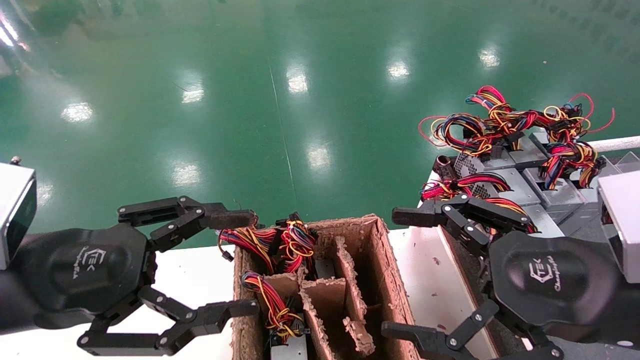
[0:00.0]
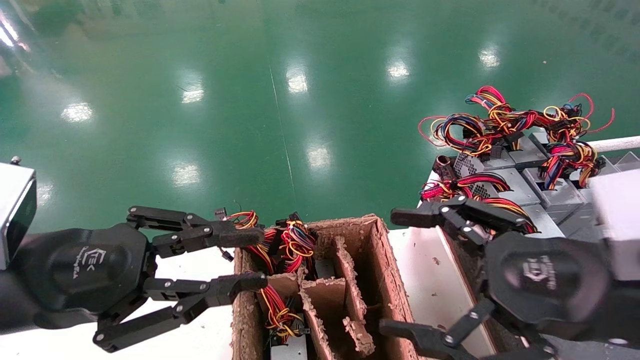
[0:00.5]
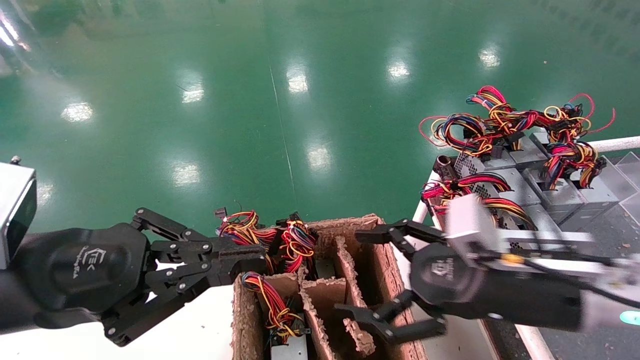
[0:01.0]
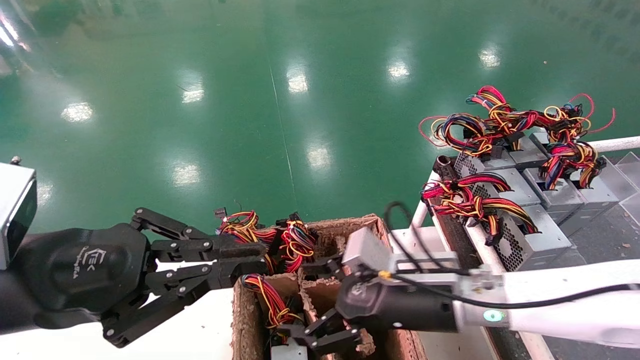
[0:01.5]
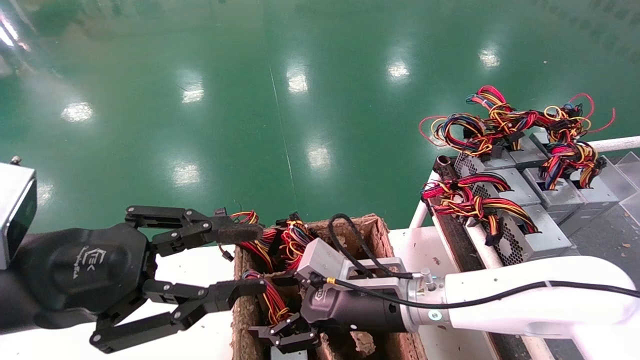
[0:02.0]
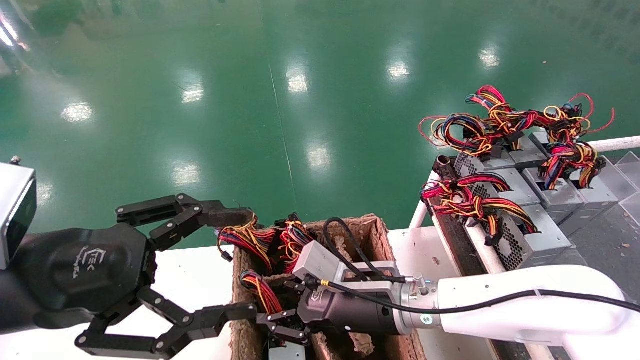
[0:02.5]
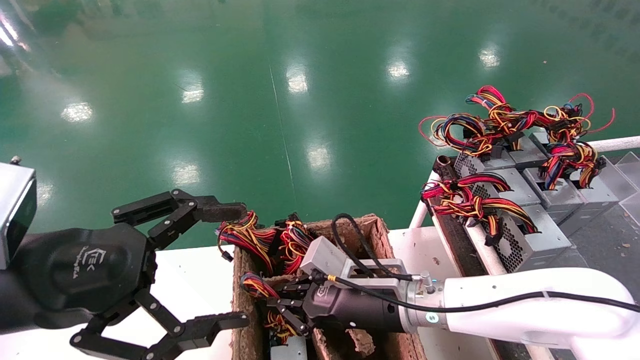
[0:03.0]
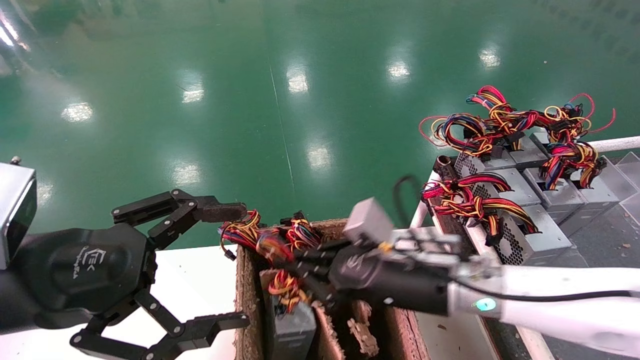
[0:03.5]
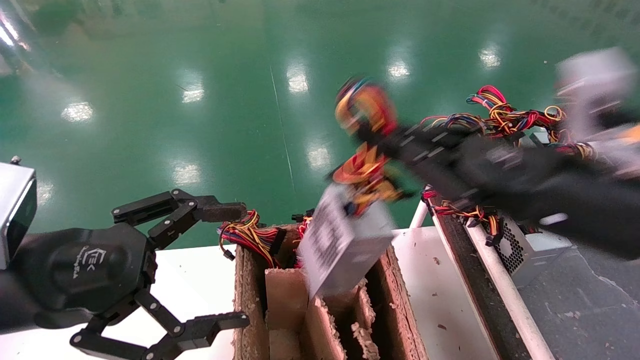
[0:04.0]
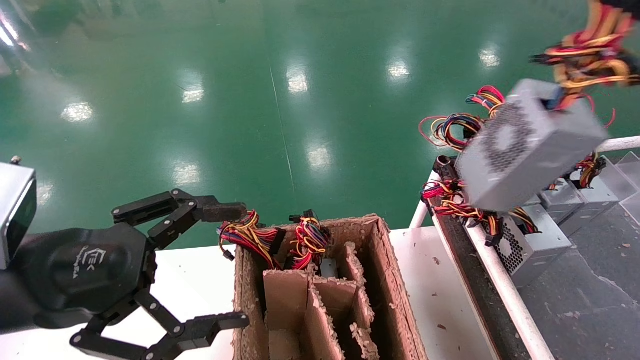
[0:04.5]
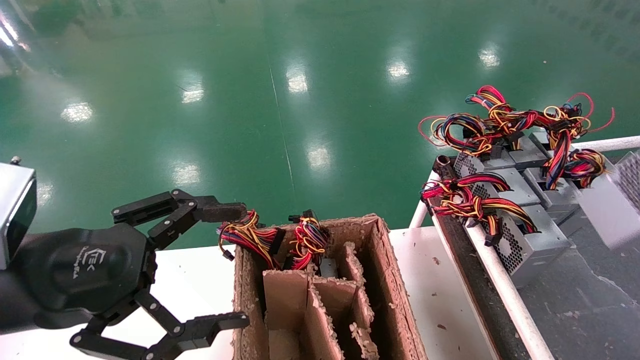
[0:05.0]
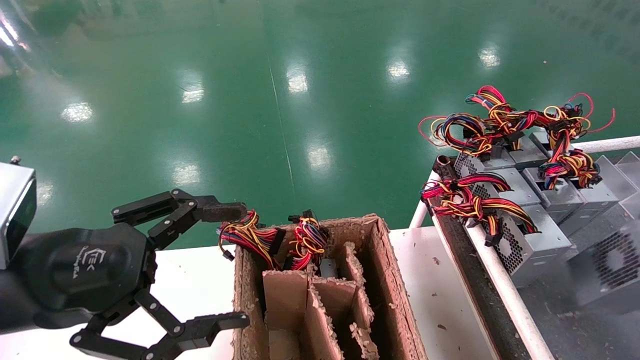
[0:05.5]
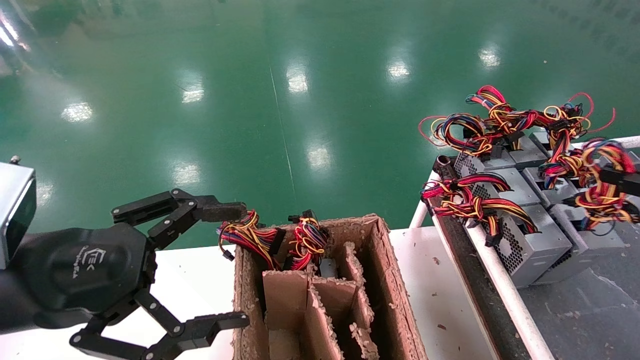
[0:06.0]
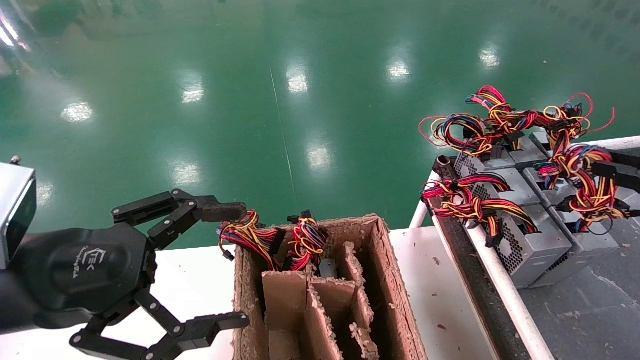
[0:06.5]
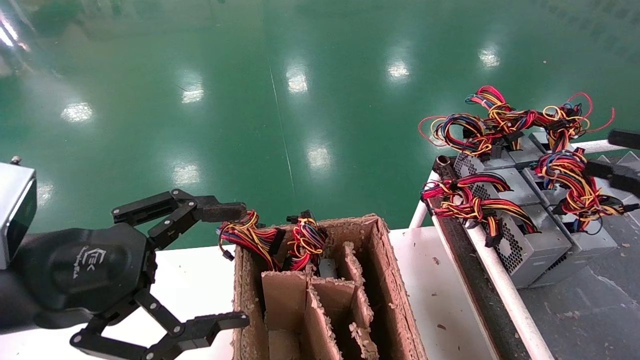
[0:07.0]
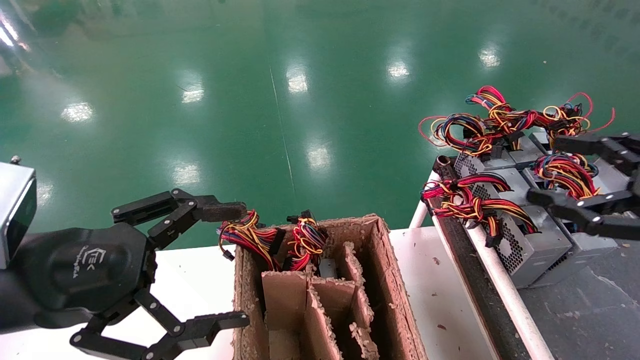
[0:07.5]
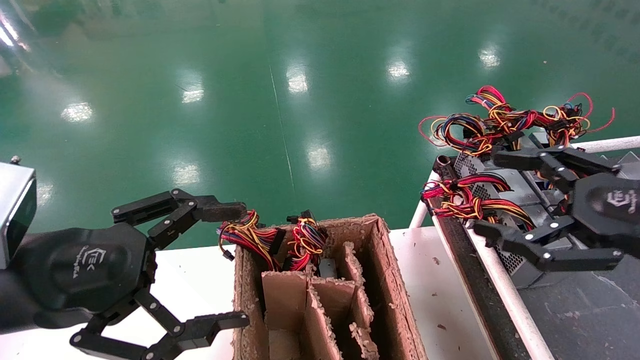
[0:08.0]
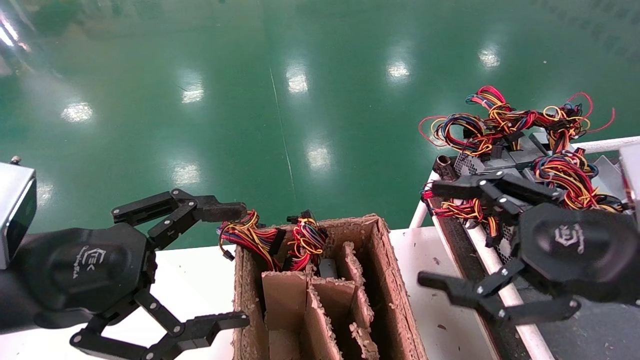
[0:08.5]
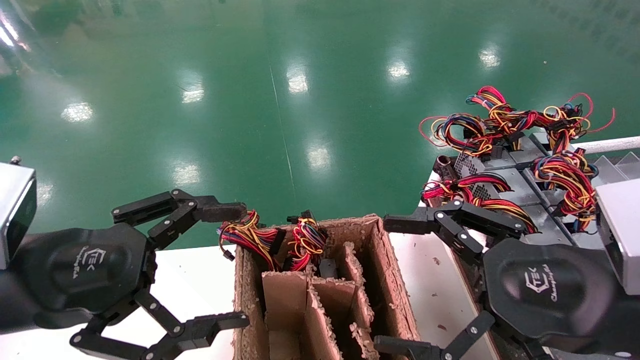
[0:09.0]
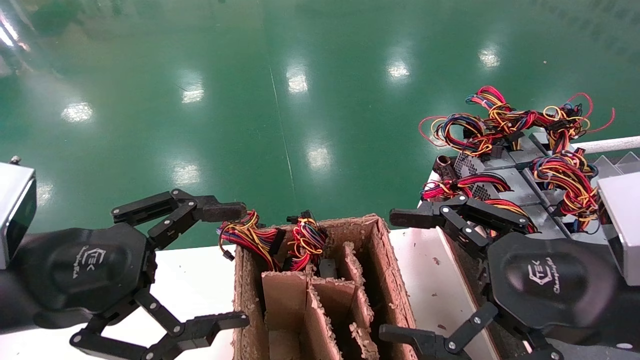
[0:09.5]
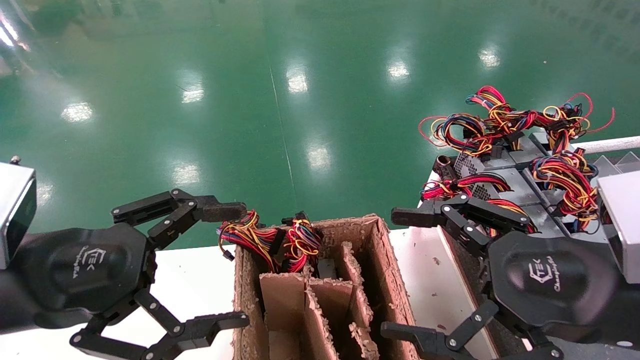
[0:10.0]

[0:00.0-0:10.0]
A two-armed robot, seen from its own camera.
Step, 0:01.0 to 0:03.0: Grab and lift the power supply from the large box.
Step, 0:03.5 to 0:06.5: Place the power supply on the operating table.
0:00.0 to 0:02.0: The right gripper is displaced to the left, forward and downward by roughly 25 cm. The left gripper closes up.
0:02.0 to 0:04.0: The right gripper heads upward, to the right and backward, covering approximately 25 cm, and closes. Meanwhile the left gripper opens its fingers.
0:04.0 to 0:06.0: The right gripper goes roughly 25 cm to the right.
0:06.0 to 0:08.0: The right gripper is displaced to the left by approximately 15 cm, and opens its fingers.
0:08.0 to 0:10.0: The right gripper travels to the left by about 10 cm.

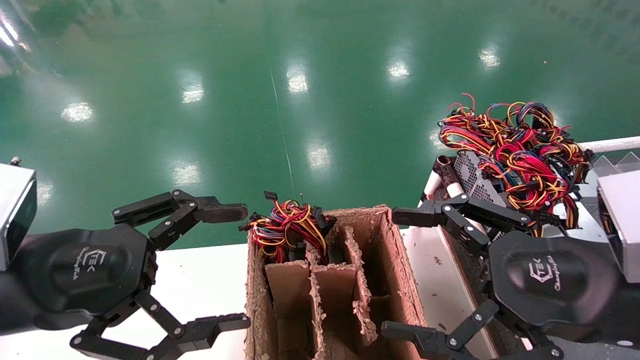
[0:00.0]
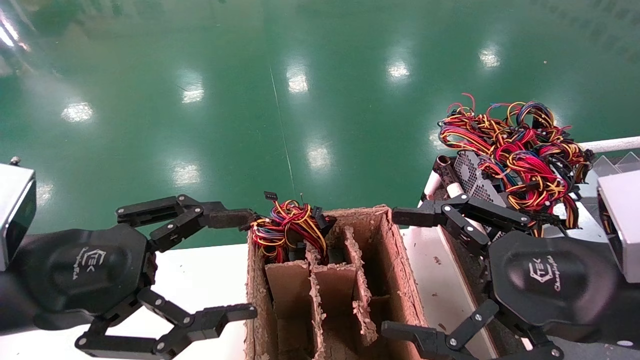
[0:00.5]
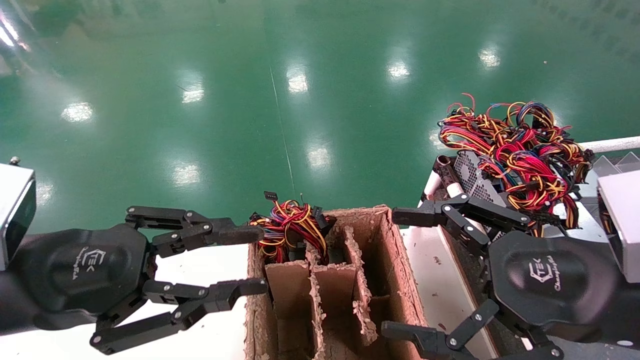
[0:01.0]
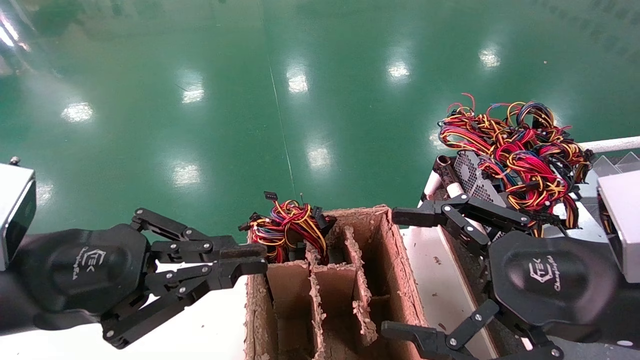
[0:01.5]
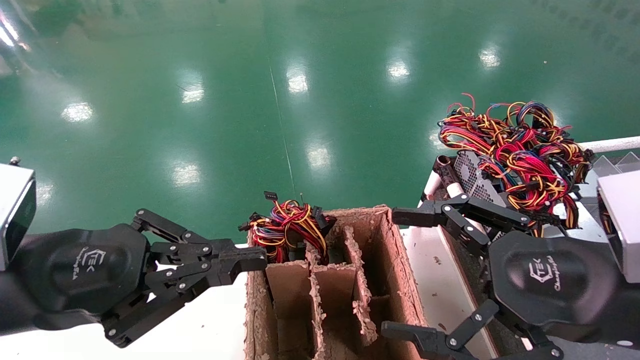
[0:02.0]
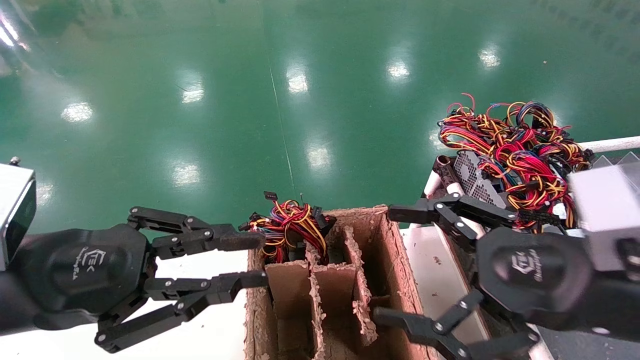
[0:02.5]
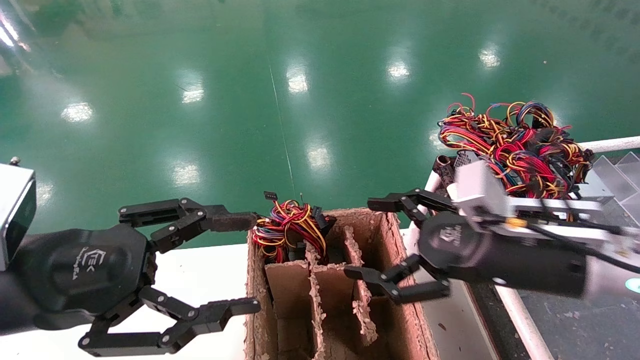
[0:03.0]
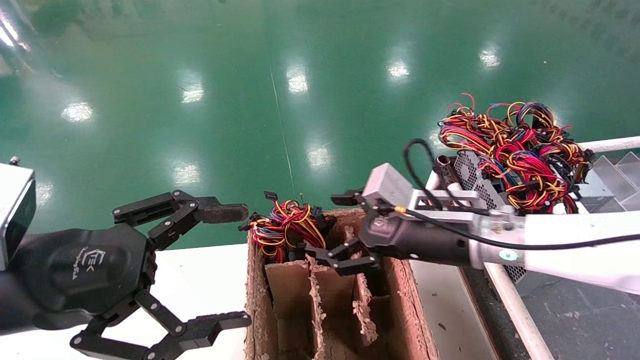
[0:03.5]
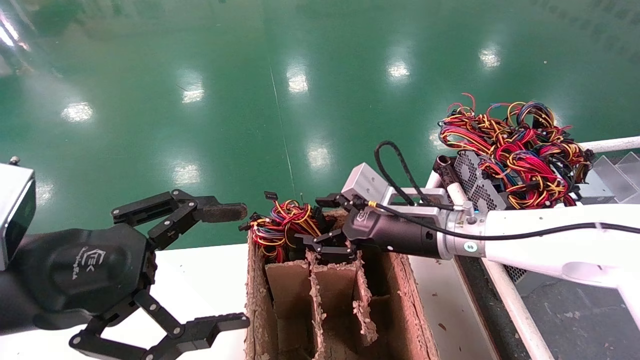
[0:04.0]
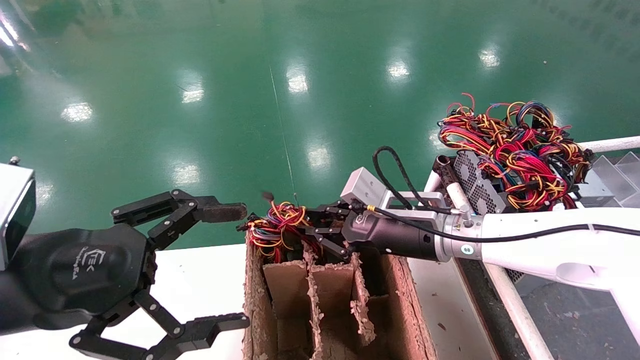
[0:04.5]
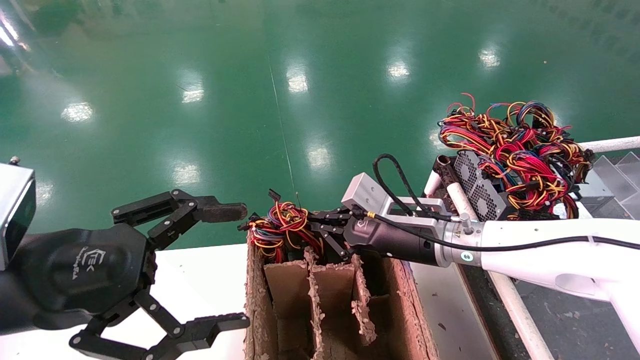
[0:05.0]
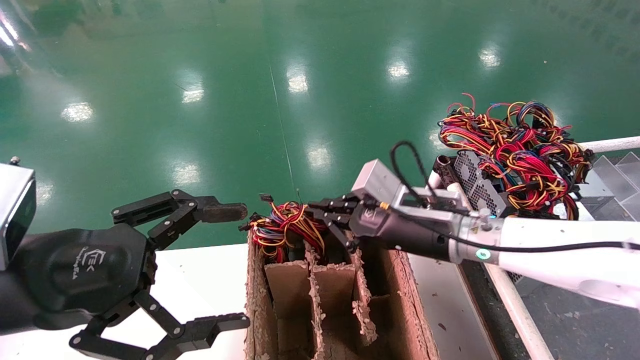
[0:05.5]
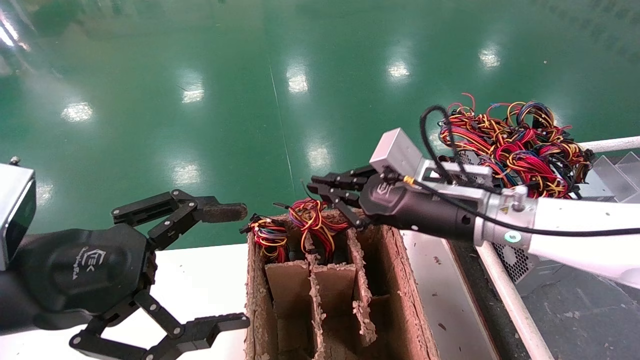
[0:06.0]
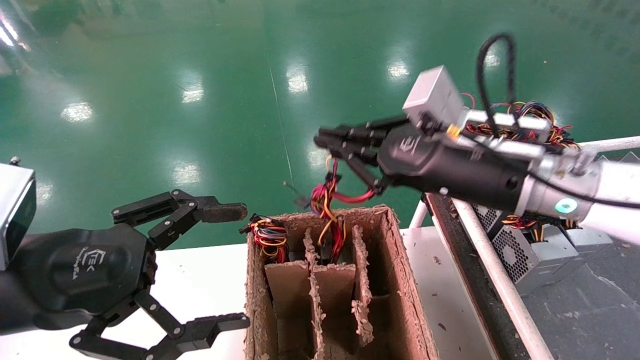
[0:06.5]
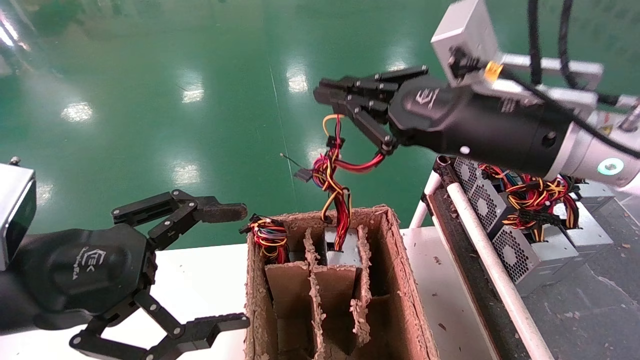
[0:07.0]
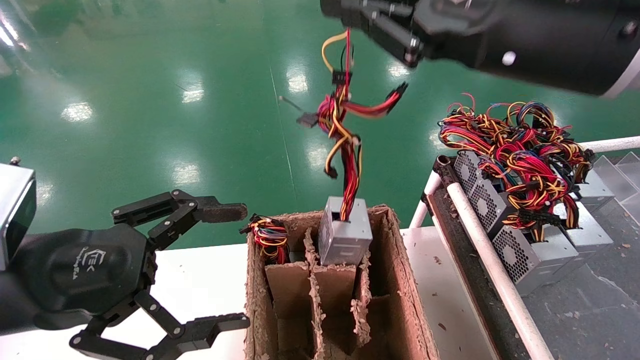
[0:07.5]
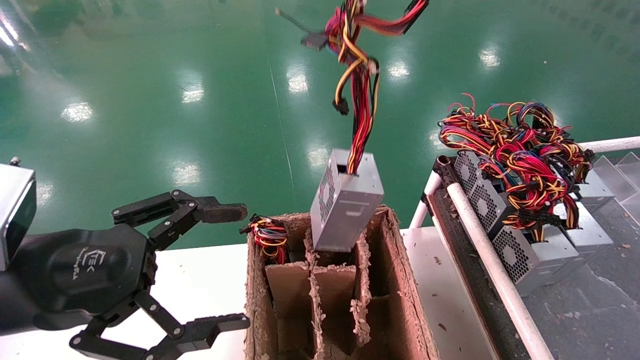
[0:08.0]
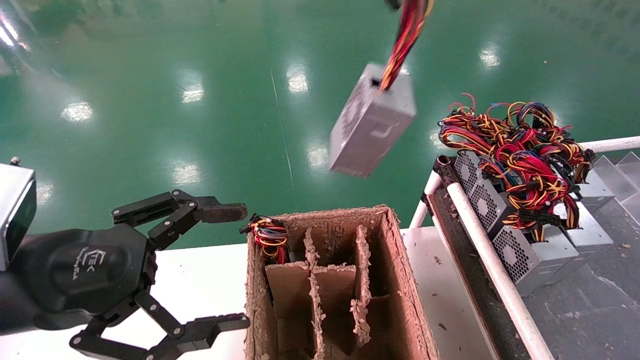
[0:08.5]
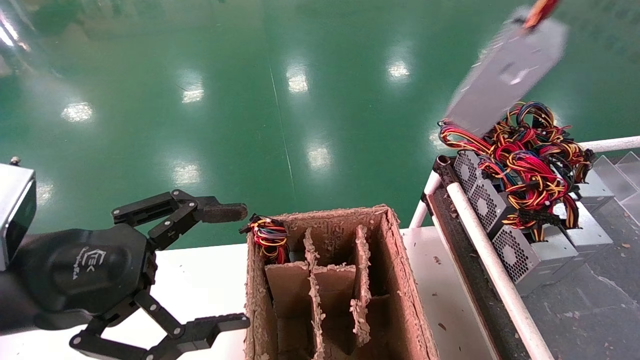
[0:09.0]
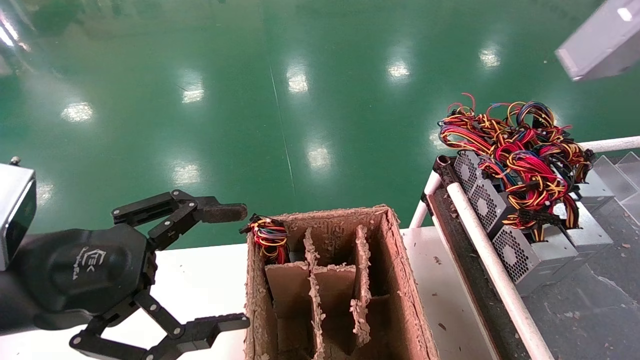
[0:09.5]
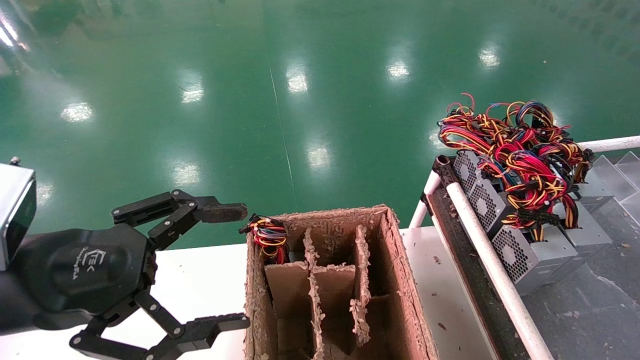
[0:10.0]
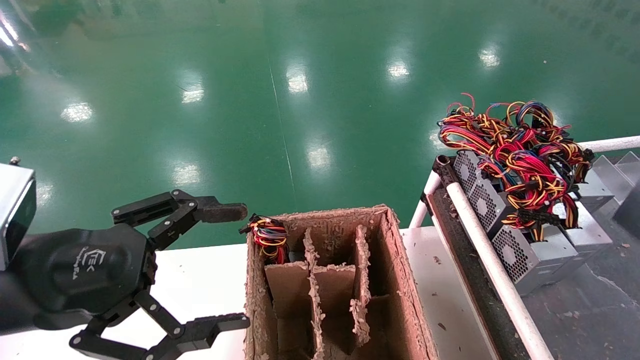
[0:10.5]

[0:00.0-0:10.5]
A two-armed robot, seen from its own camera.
Step, 0:03.0 to 0:04.5: Grab and lift the power supply from the large box.
0:00.0 to 0:02.0: The left gripper closes up.
0:02.0 to 0:04.0: The right gripper heads forward and to the left, covering about 20 cm. The left gripper opens its fingers.
0:04.0 to 0:06.5: The right gripper is displaced upward and backward by roughly 10 cm, and closes up.
0:06.5 to 0:08.5: The right gripper shifts about 35 cm upward and backward.
0:08.5 to 0:10.5: The right gripper is displaced to the right by about 30 cm.
